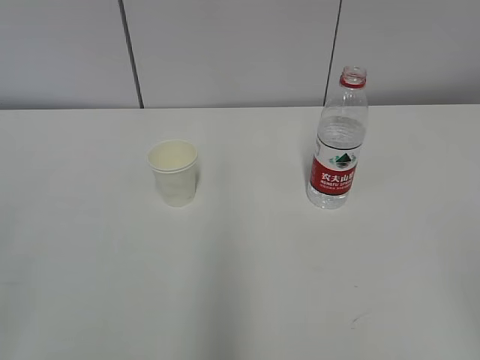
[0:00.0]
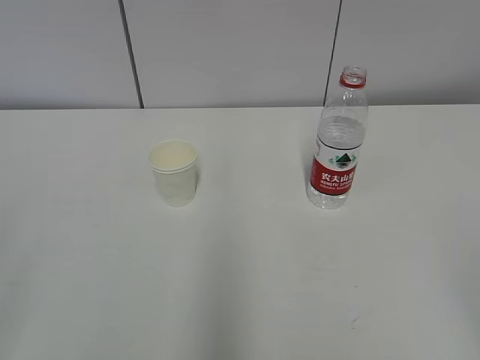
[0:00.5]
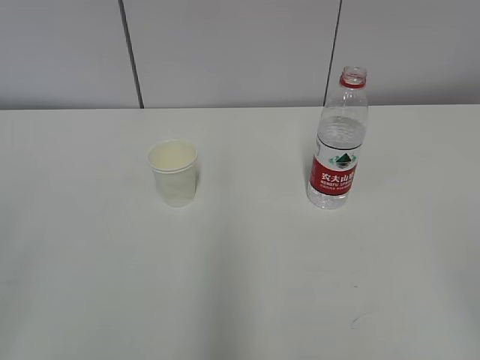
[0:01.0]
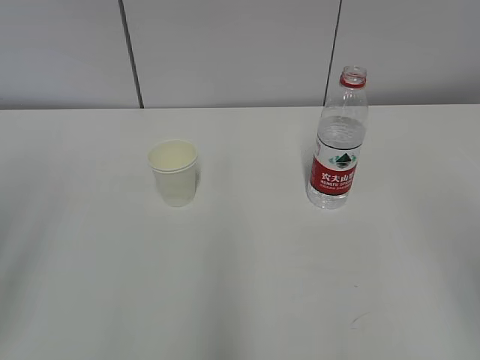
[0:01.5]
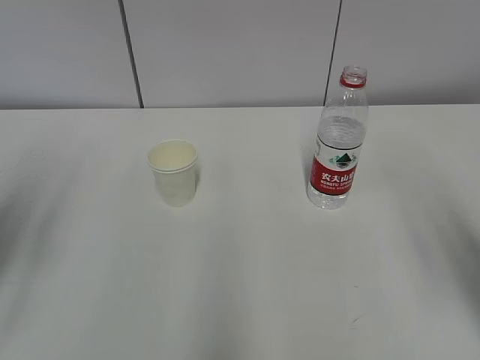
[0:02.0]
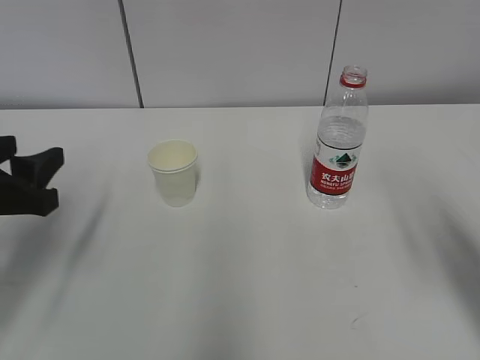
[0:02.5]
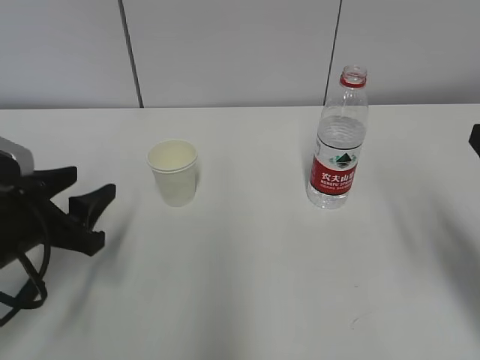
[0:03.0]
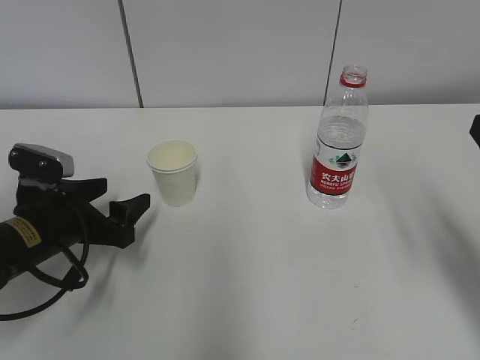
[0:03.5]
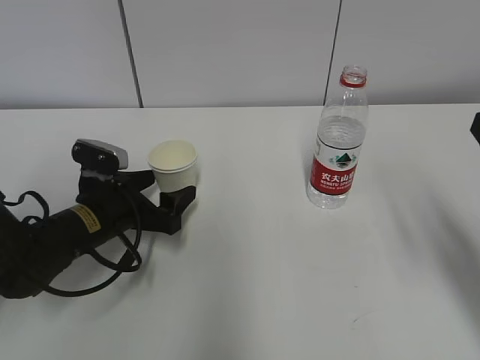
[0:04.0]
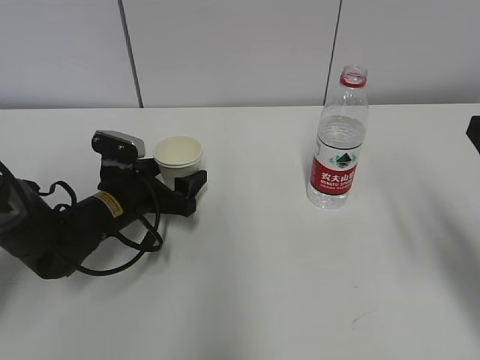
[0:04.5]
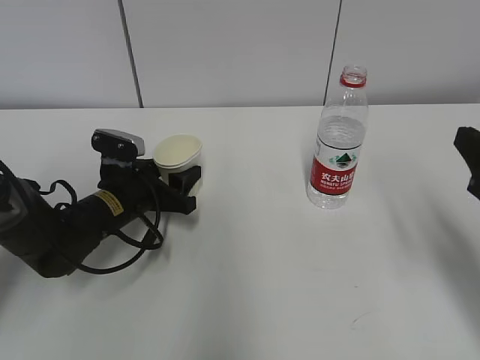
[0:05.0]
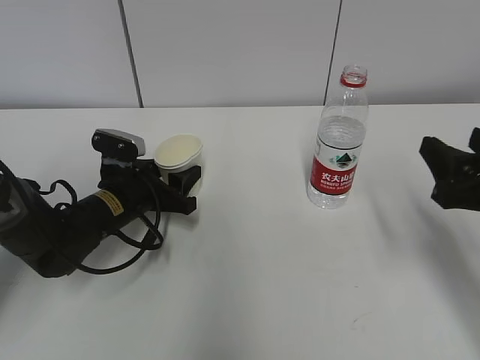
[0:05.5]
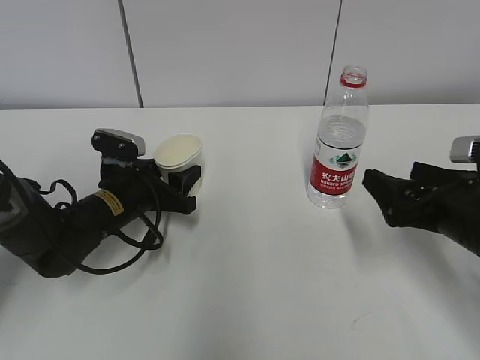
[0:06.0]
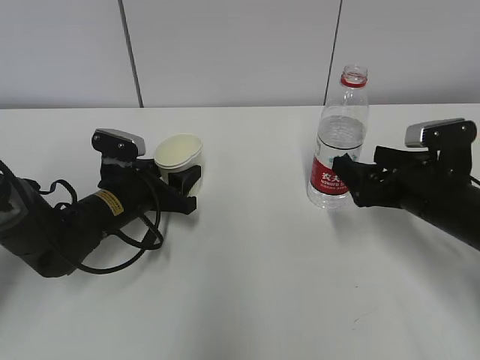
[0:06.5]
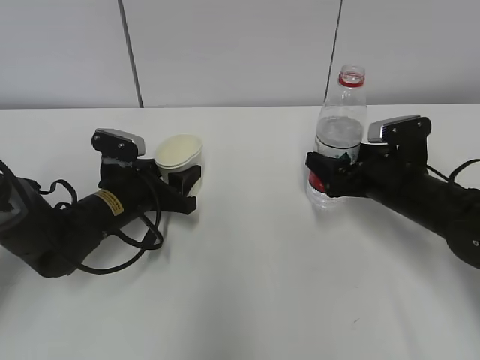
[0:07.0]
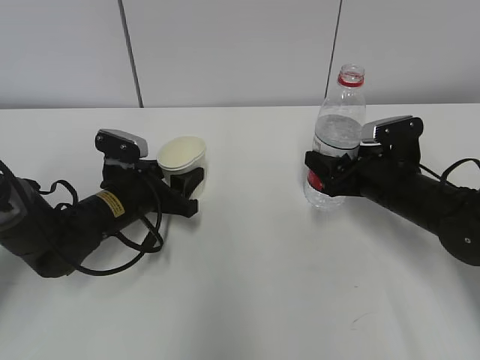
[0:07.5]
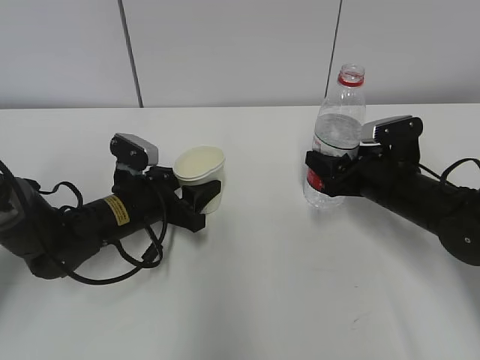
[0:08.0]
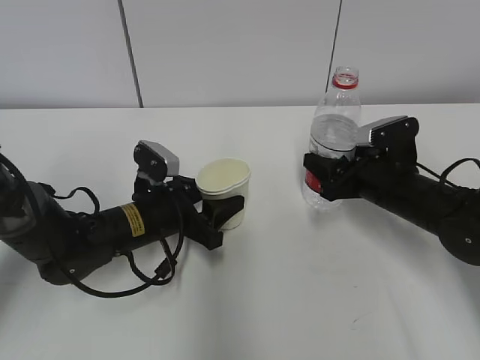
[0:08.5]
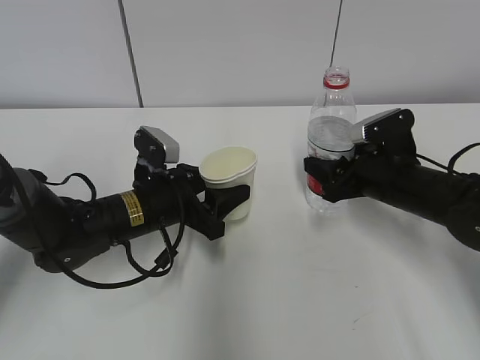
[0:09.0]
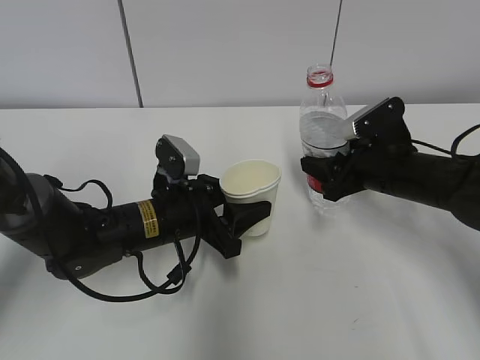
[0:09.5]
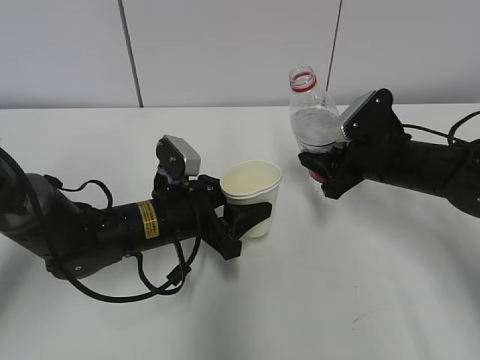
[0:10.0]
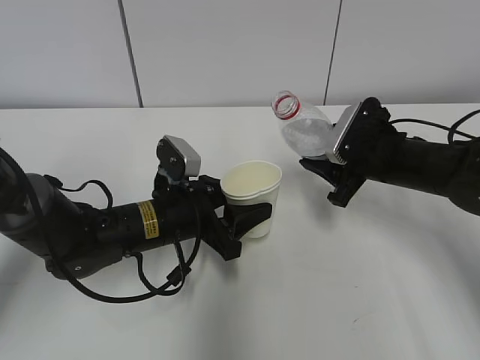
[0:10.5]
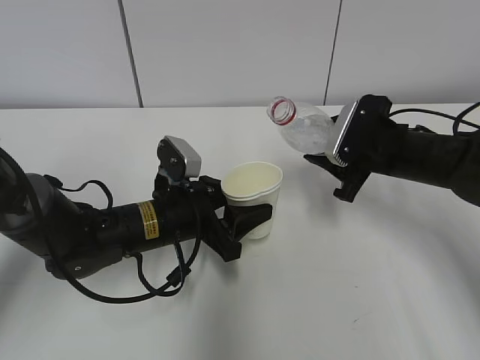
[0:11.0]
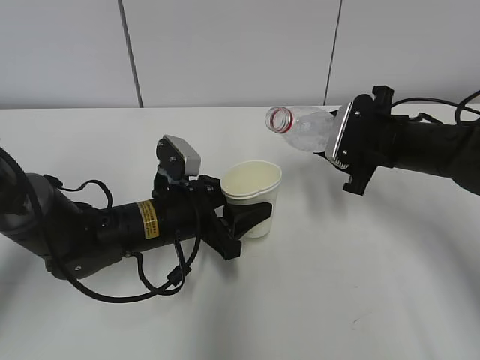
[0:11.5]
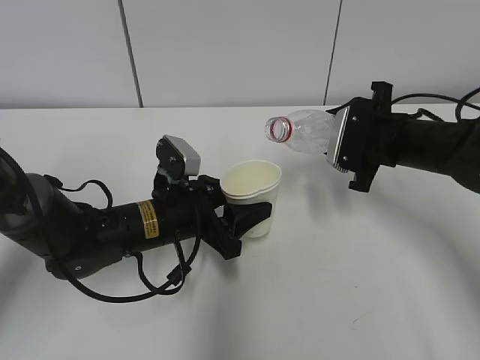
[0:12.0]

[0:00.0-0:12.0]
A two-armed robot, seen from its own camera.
Step, 0.0 to 6.0 s: Grab the paper cup with the left hand.
Step, 6.5 to 7.0 s: Grab the water bottle with the right hand.
Step, 7.5 to 11.0 s: Lift the paper cup with the left hand.
2.0 to 4.0 s: The left gripper heads downward, forward and to the right, covering about 30 cm, and opens its fingers. Meanwhile the right gripper is displaced downward by about 5 cm.
4.0 to 6.0 s: The right gripper goes about 10 cm downward and forward, and opens; the left gripper closes its fingers.
6.0 to 8.0 s: The right gripper travels forward by approximately 10 cm, and closes up.
8.0 to 10.0 s: The left gripper is displaced to the right by roughly 5 cm.

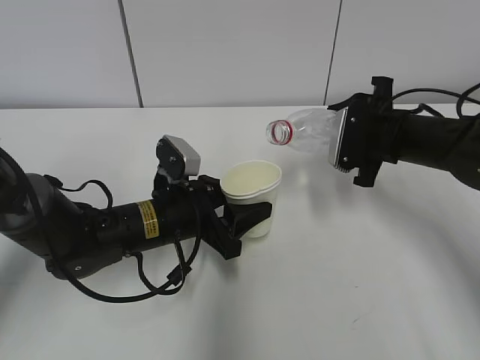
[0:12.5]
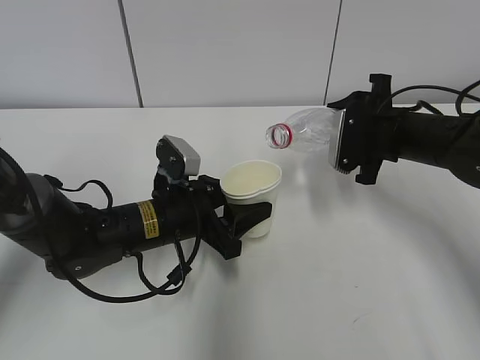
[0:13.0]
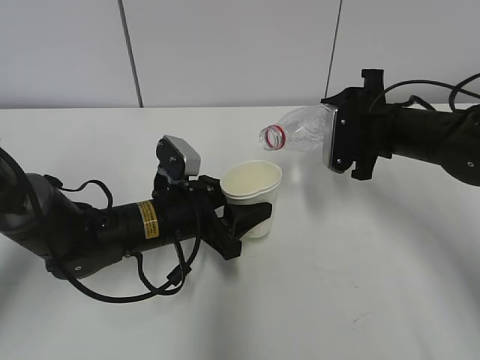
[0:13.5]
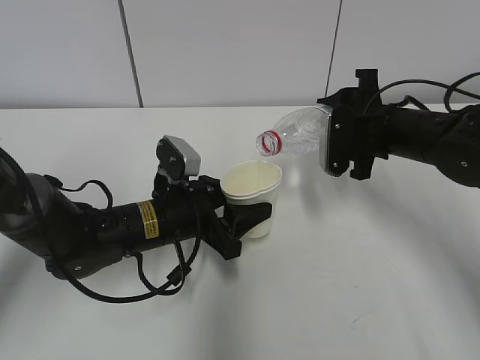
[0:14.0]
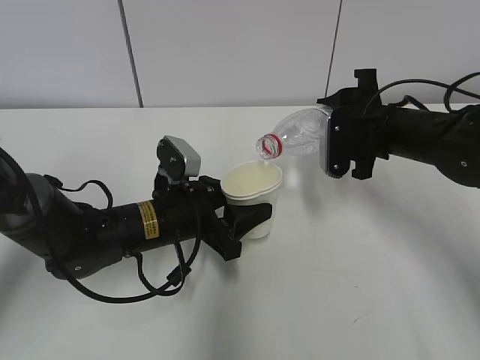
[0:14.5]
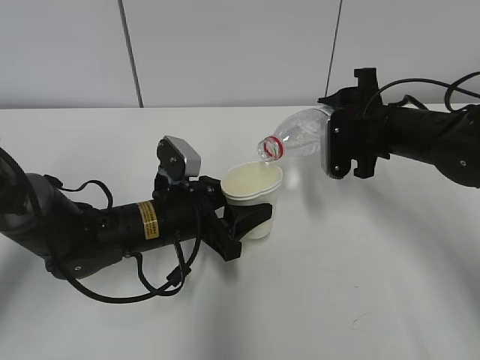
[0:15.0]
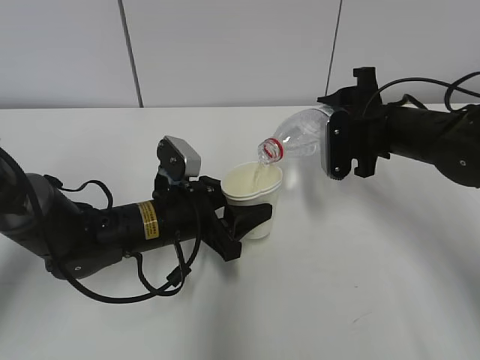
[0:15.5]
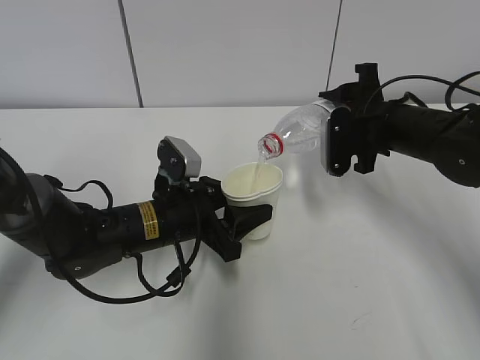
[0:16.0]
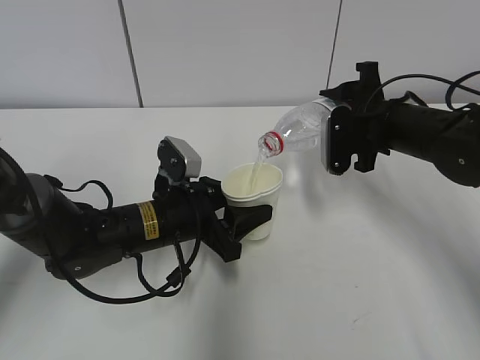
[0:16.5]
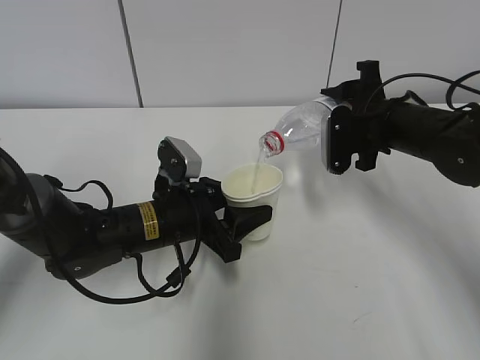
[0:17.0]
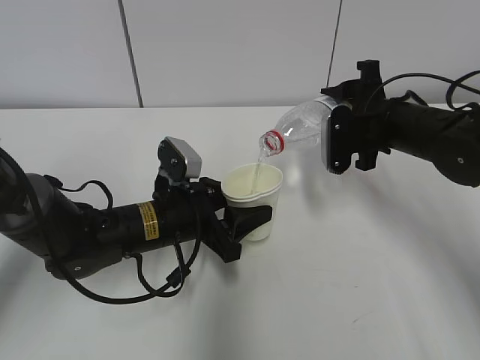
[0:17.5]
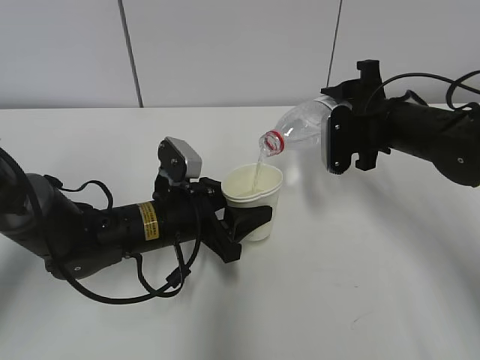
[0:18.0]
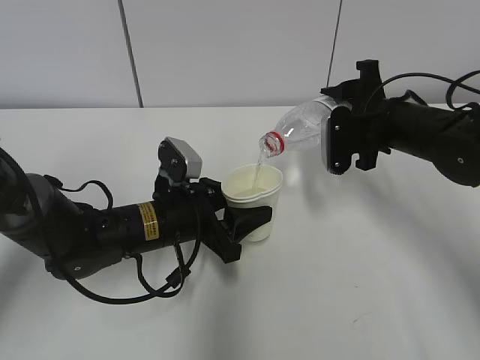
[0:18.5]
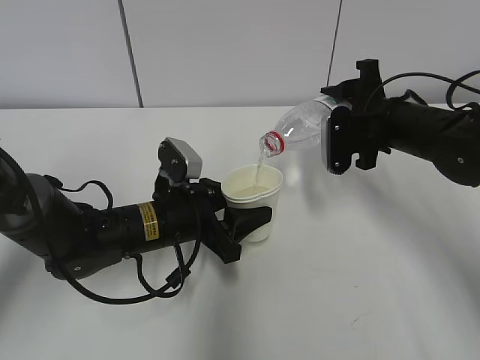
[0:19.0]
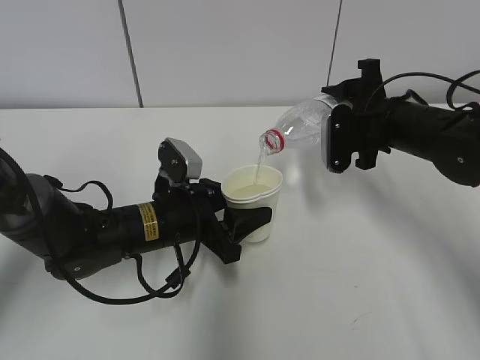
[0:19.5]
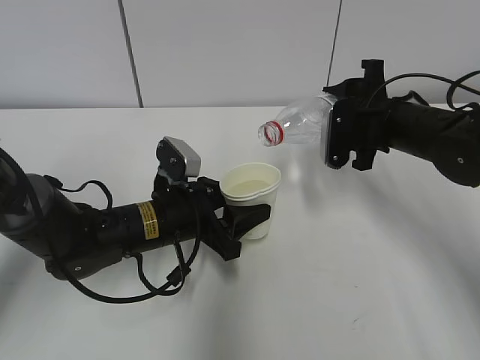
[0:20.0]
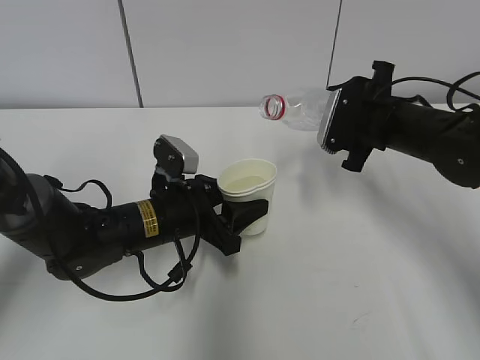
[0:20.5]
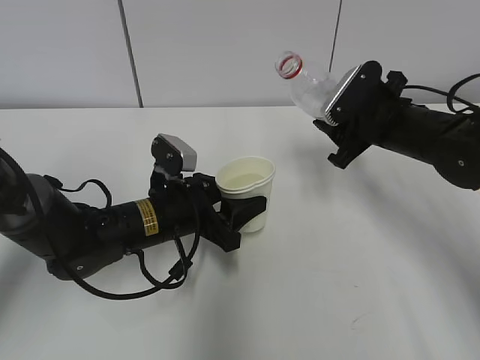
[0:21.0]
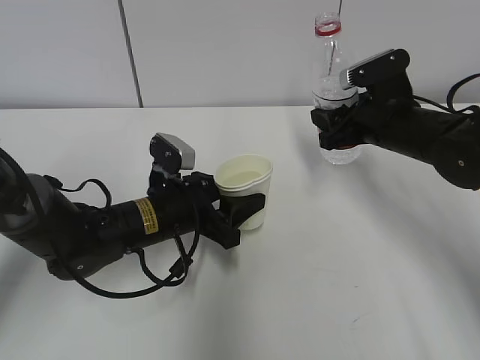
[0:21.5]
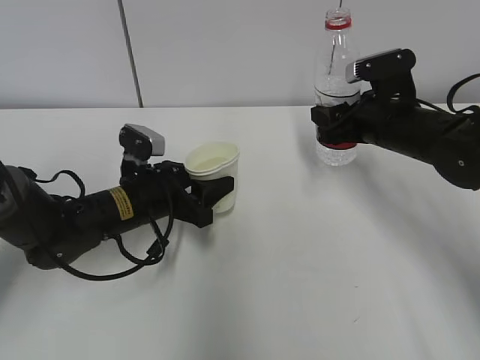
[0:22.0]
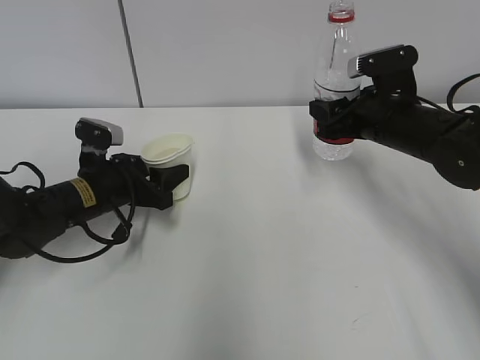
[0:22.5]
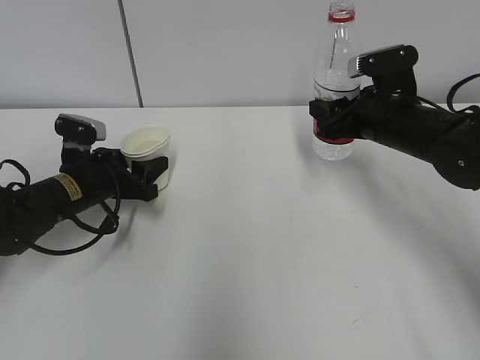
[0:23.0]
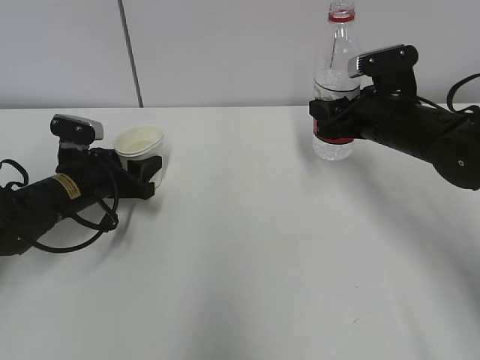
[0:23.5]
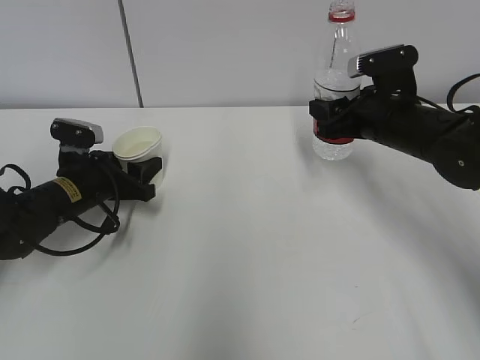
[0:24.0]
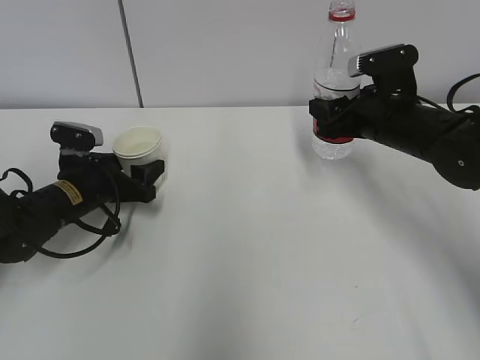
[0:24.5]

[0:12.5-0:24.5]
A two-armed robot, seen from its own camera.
Step, 12.5 to 16.5 s: Pour water with the right hand.
Step, 18.5 to 20.0 s: Place the paper cup with the left hand.
12.5 to 14.5 s: The grippers move only a little.
14.5 to 16.5 s: Neither gripper changes place.
16.5 to 18.5 s: Both grippers stay about where they are.
20.5 to 22.5 s: The left gripper moves to the left, some 10 cm.
22.5 to 24.5 s: There are only small adjustments of the grippers.

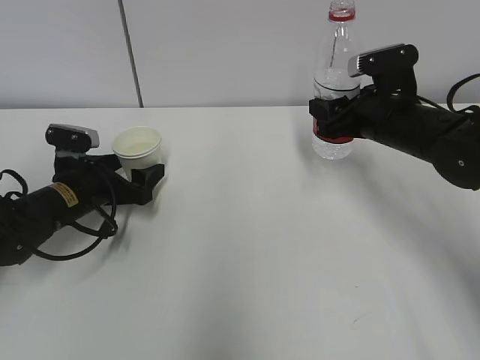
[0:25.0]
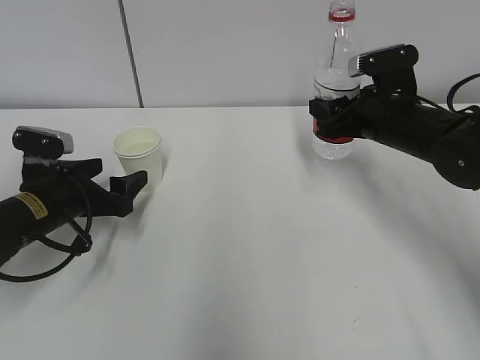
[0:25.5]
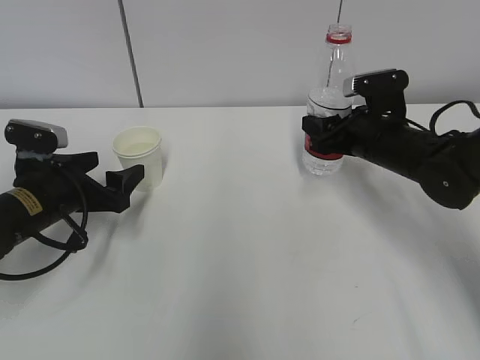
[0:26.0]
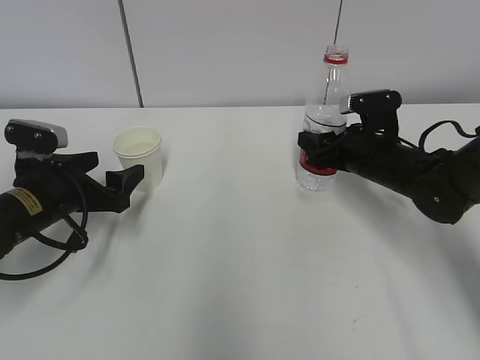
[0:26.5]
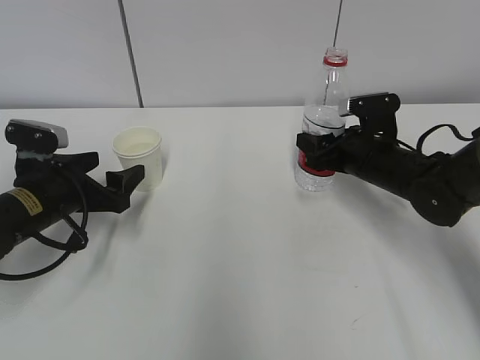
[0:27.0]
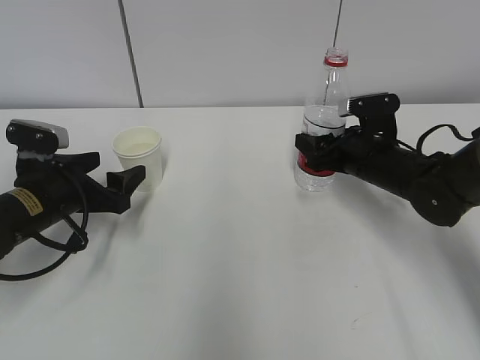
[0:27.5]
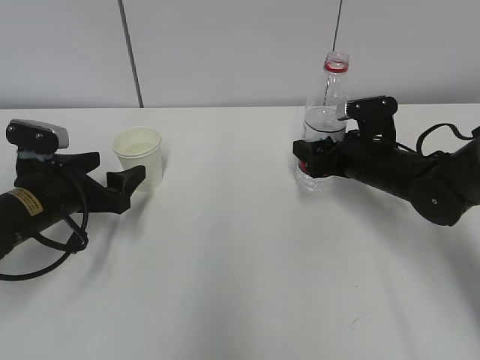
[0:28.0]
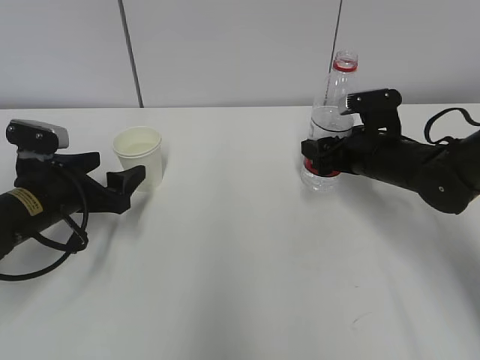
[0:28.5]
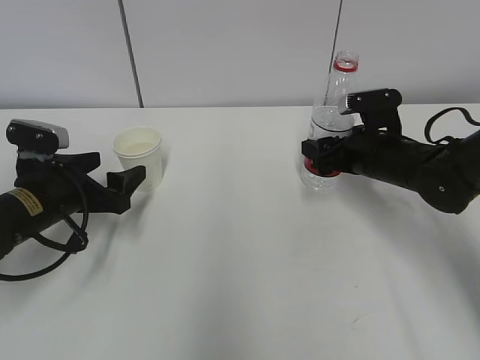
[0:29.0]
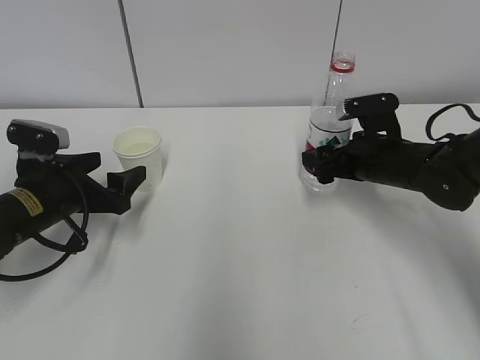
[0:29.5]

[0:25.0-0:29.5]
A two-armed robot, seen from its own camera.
25.0 to 27.0 s: The left gripper goes approximately 5 cm backward; the right gripper heads downward, covering some 5 cm.
27.0 to 29.5 s: The right gripper opens.
